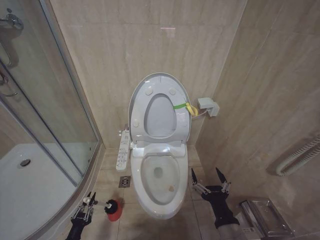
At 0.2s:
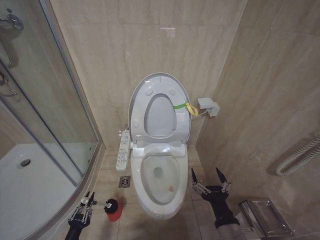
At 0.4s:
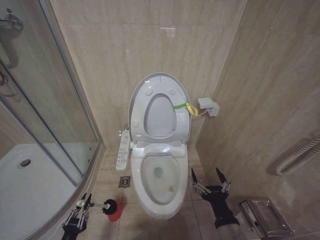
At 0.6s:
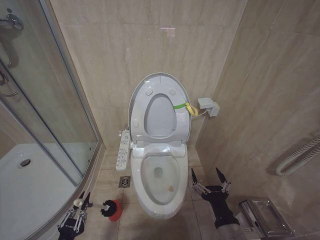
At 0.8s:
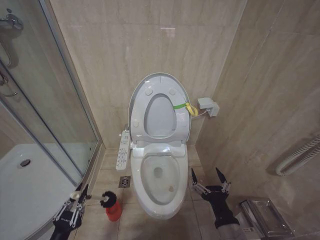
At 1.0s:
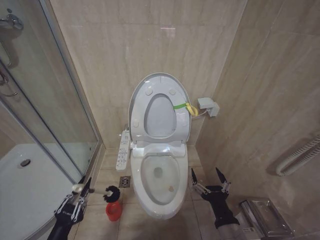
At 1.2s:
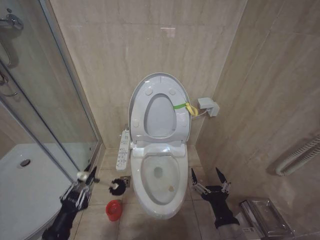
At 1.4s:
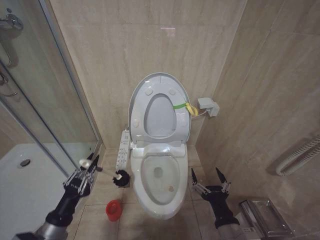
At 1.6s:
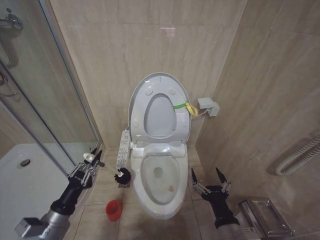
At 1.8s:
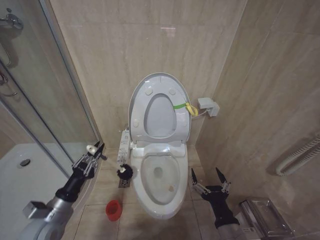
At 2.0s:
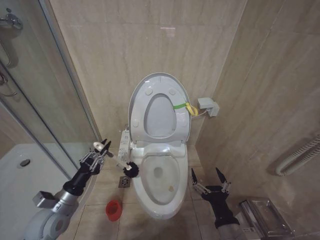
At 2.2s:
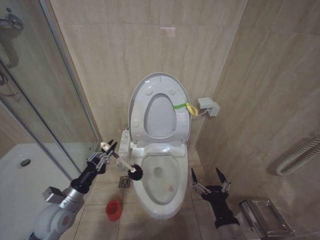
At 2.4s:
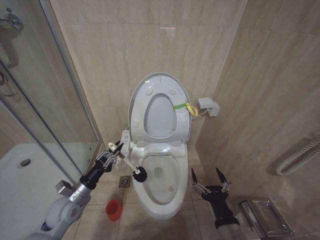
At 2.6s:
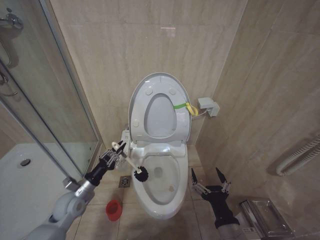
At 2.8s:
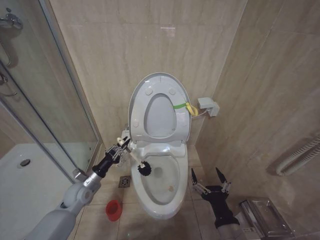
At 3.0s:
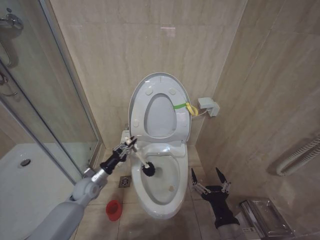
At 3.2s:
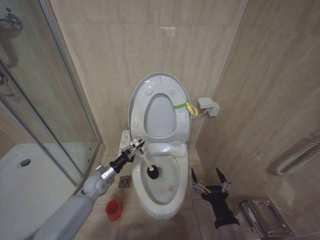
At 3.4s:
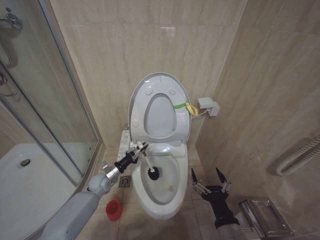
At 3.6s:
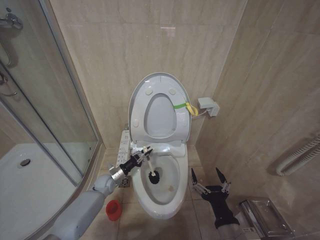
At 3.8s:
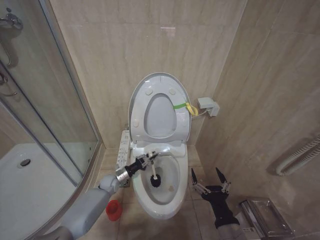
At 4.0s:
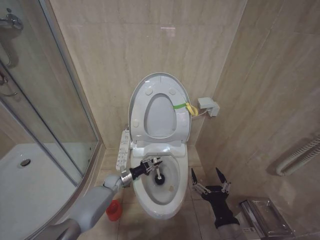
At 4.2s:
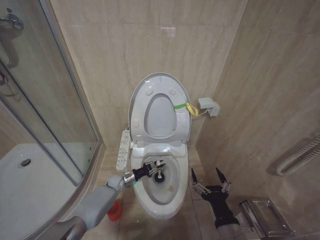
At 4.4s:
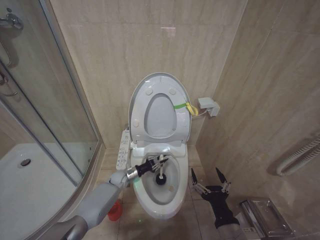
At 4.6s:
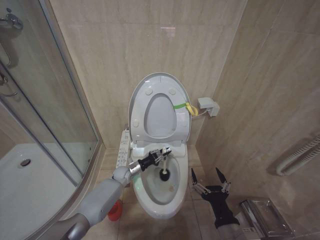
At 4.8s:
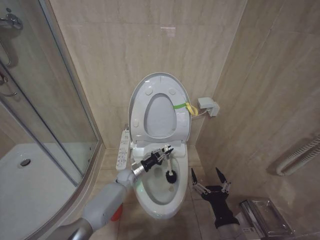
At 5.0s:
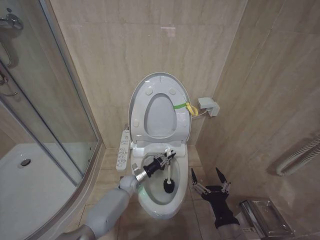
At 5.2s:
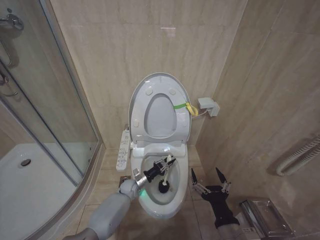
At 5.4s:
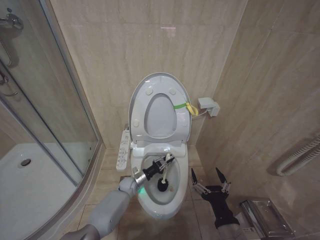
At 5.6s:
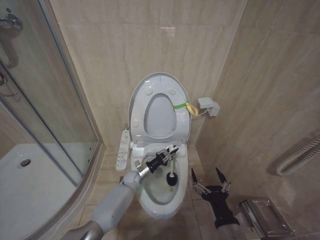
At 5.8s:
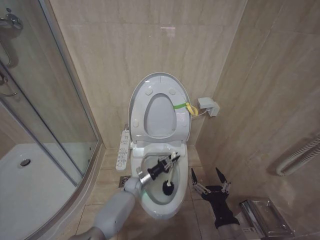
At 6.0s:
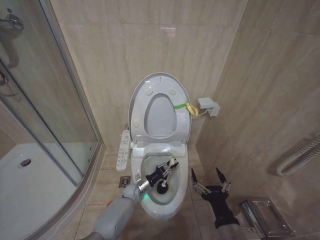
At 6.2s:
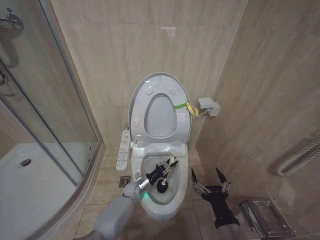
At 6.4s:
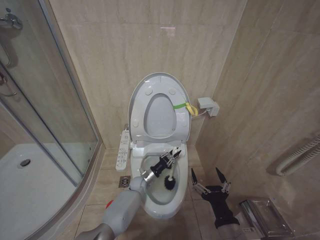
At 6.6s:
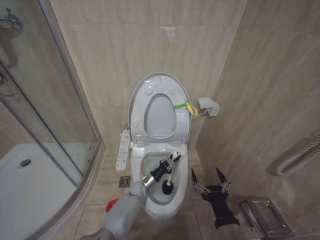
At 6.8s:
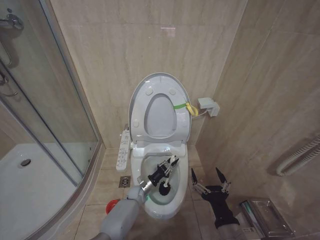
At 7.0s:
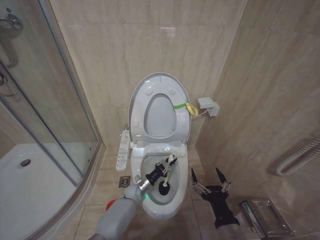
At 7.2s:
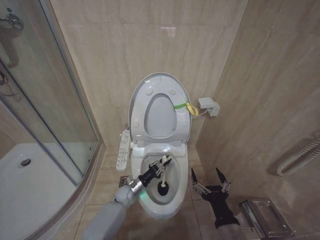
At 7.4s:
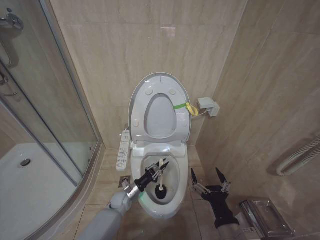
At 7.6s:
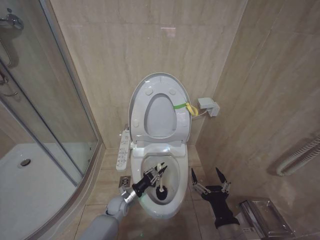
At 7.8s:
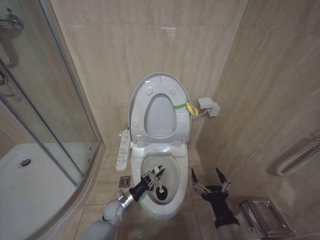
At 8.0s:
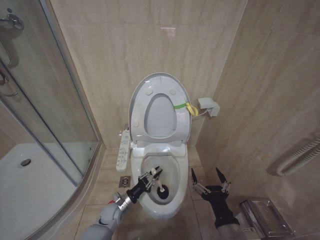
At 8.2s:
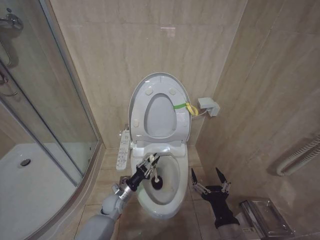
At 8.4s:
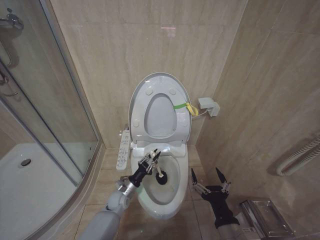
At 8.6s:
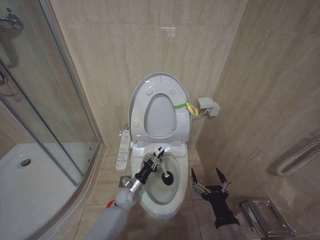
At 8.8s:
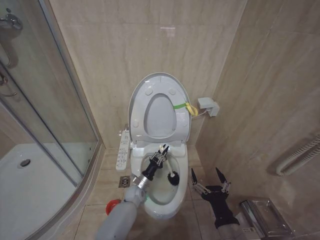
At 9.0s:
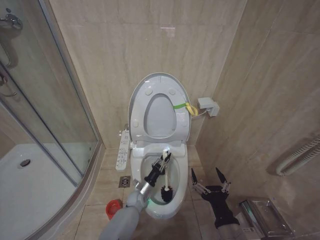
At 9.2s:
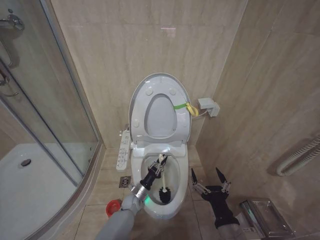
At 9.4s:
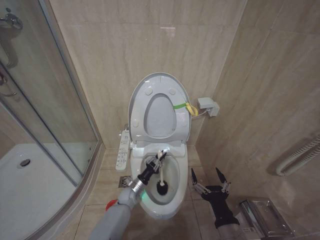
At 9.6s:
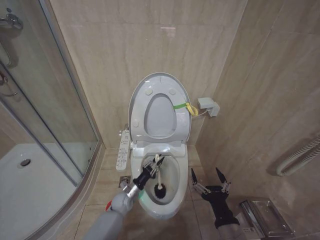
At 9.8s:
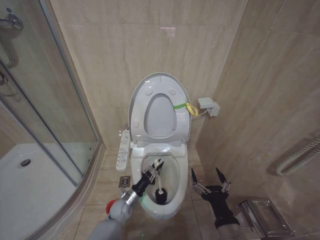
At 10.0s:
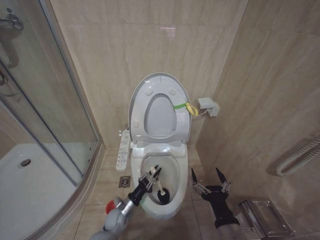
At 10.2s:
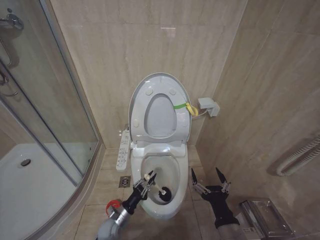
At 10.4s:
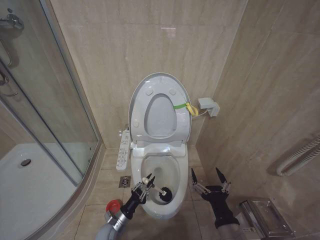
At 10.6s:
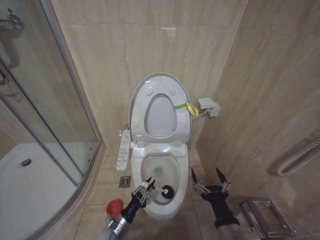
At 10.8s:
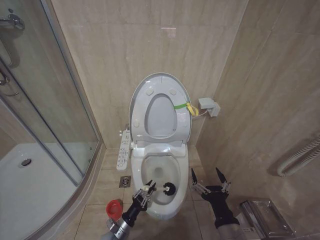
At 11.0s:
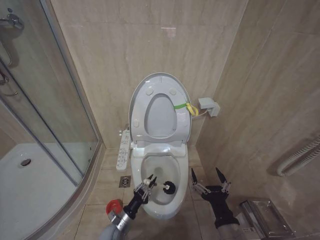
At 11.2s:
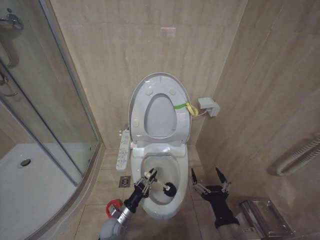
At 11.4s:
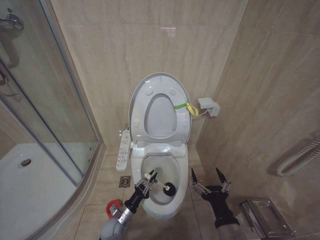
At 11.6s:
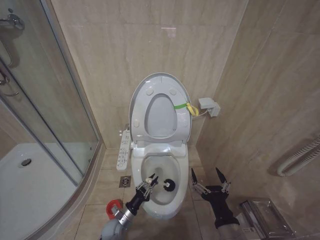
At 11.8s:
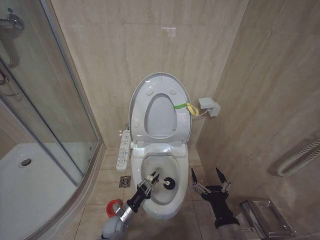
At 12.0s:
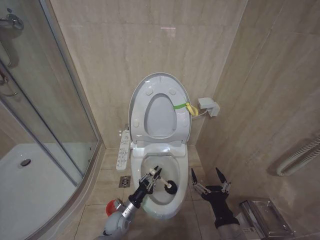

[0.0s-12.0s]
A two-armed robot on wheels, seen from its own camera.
Task of the whole recording: Open the toilet lid, clean the toilet bowl with a toilet brush, close the toilet lid, and flush.
0.0s to 1.6s: The left gripper heads upward, covering roughly 25 cm.
1.6s to 3.0s: The left gripper shifts roughly 20 cm forward.
3.0s to 4.4s: The left gripper goes roughly 20 cm downward, to the right and forward.
4.4s to 6.0s: The left gripper heads to the right, covering some 10 cm.
6.0s to 7.6s: The left gripper shifts about 10 cm backward and to the left.
7.6s to 9.0s: The left gripper is displaced to the right by about 10 cm.
9.0s to 10.4s: The left gripper heads backward and to the left, covering roughly 15 cm.
10.4s to 12.0s: The grippers make only small movements.

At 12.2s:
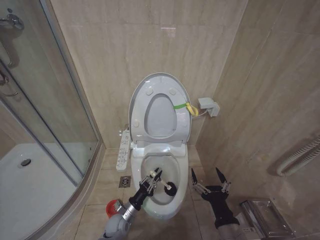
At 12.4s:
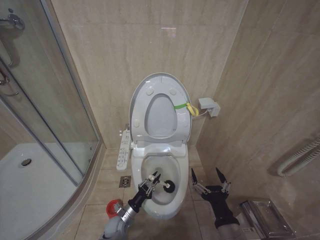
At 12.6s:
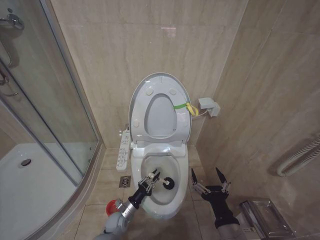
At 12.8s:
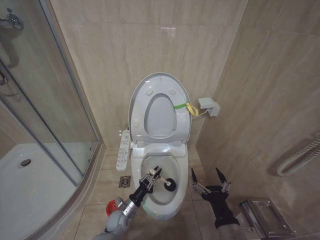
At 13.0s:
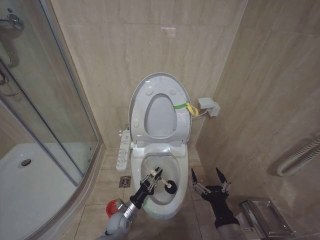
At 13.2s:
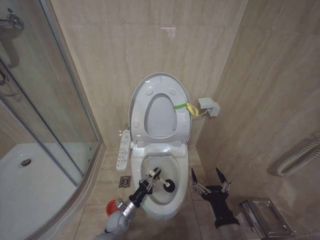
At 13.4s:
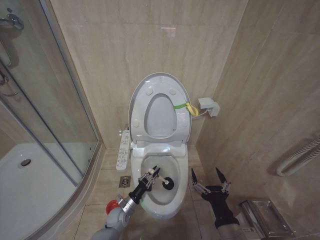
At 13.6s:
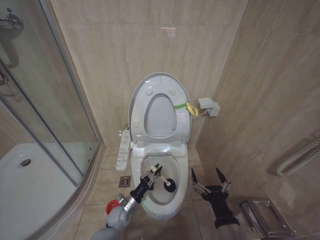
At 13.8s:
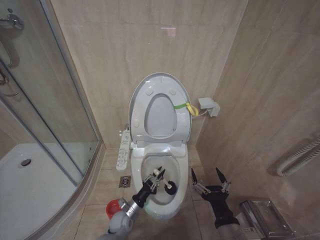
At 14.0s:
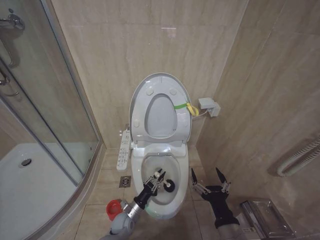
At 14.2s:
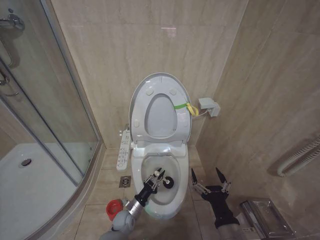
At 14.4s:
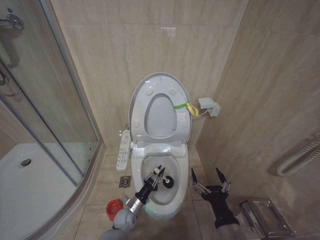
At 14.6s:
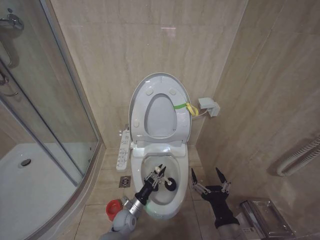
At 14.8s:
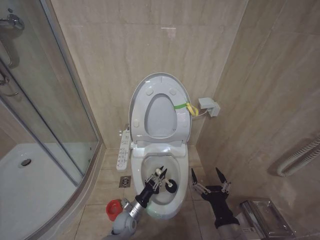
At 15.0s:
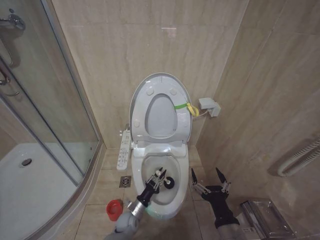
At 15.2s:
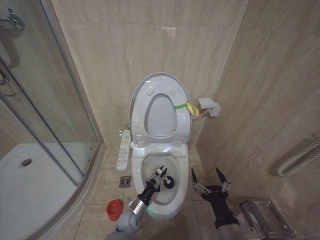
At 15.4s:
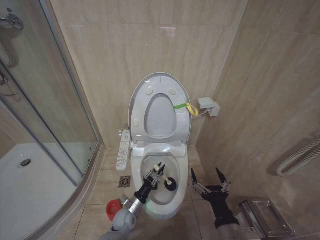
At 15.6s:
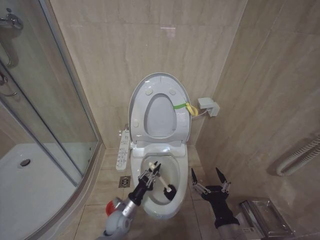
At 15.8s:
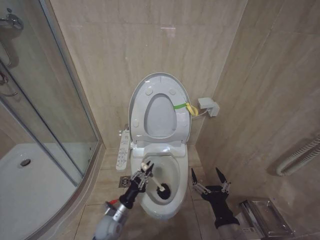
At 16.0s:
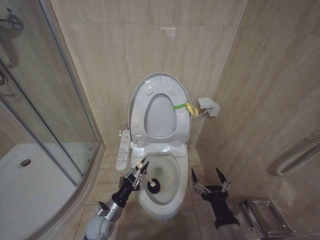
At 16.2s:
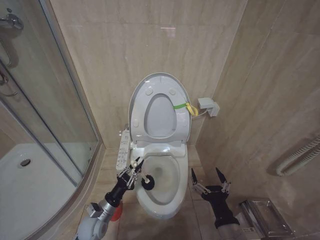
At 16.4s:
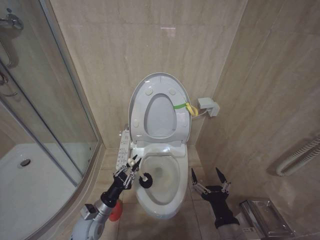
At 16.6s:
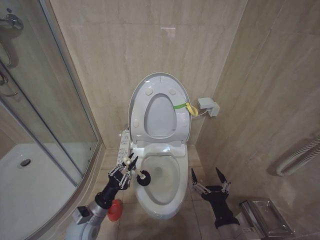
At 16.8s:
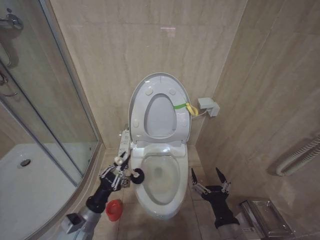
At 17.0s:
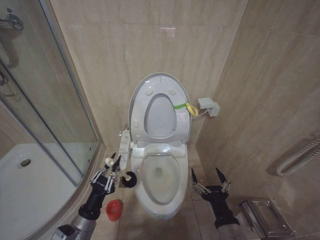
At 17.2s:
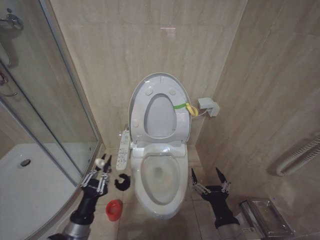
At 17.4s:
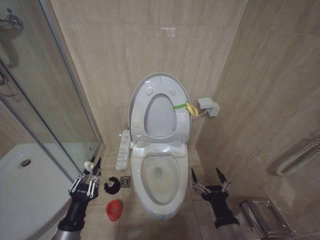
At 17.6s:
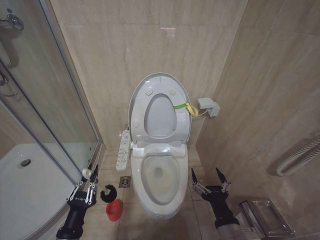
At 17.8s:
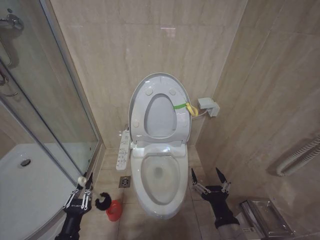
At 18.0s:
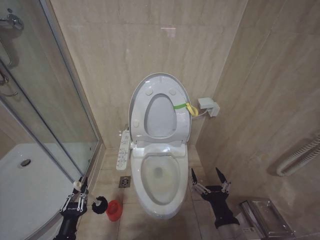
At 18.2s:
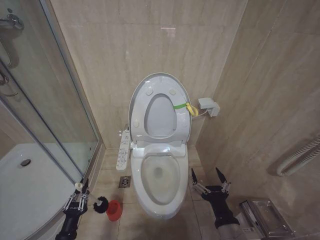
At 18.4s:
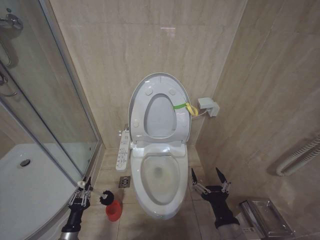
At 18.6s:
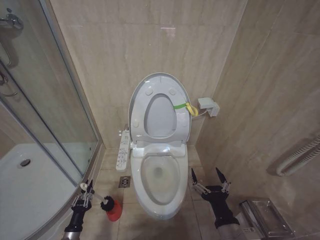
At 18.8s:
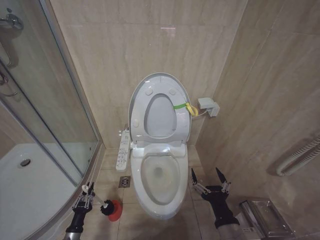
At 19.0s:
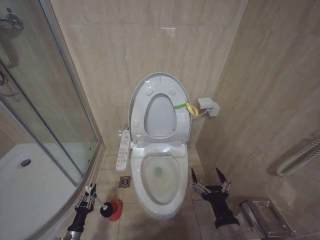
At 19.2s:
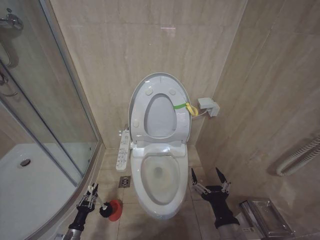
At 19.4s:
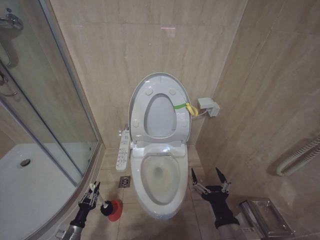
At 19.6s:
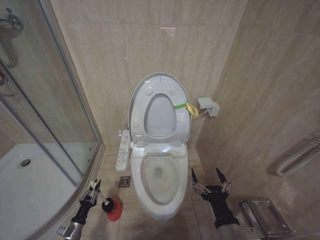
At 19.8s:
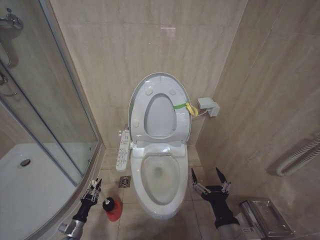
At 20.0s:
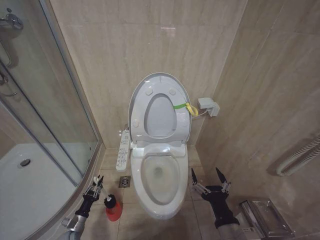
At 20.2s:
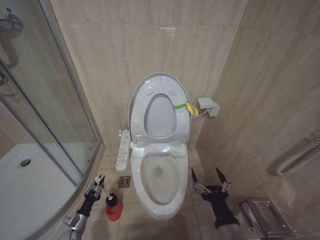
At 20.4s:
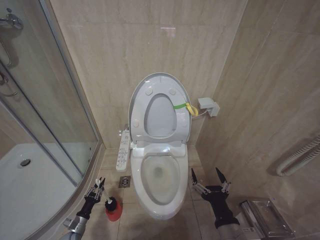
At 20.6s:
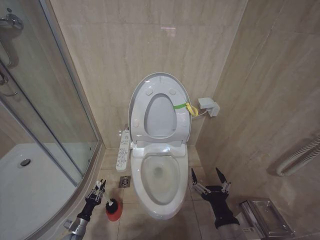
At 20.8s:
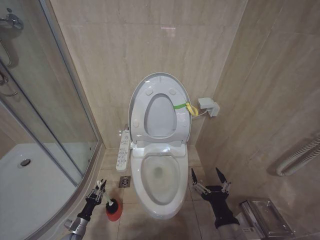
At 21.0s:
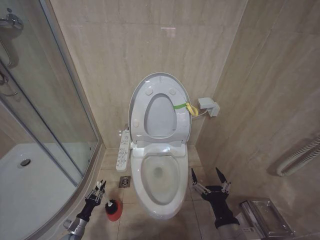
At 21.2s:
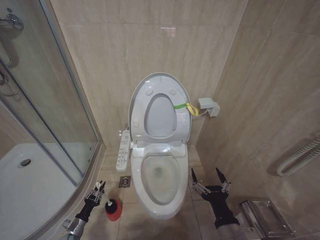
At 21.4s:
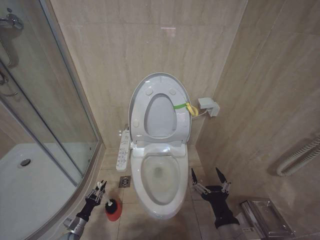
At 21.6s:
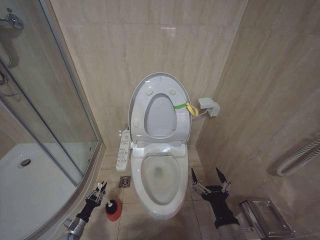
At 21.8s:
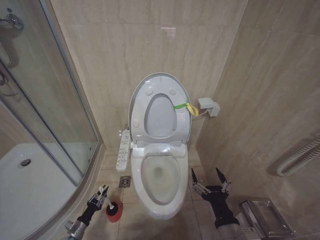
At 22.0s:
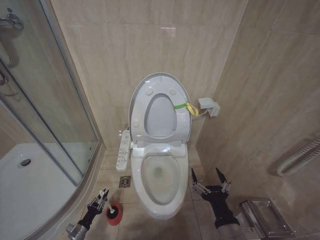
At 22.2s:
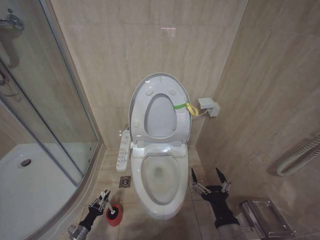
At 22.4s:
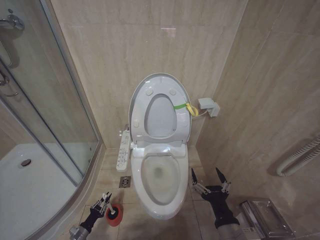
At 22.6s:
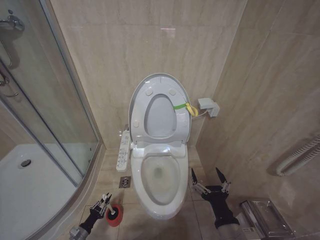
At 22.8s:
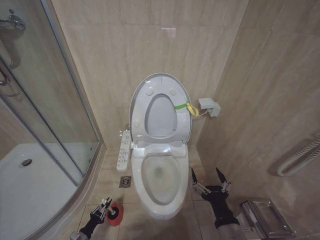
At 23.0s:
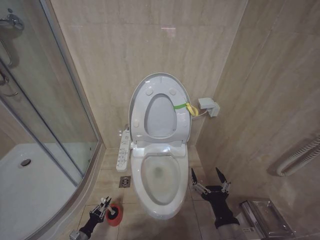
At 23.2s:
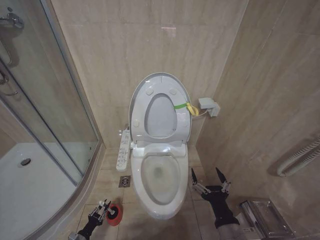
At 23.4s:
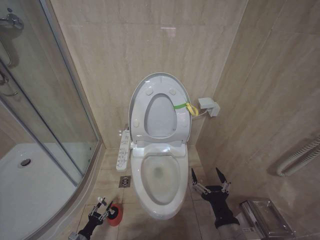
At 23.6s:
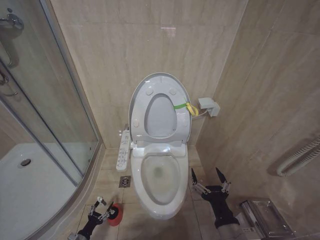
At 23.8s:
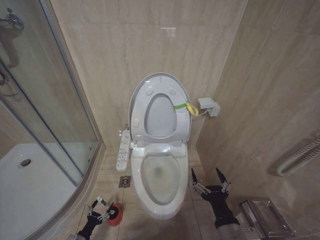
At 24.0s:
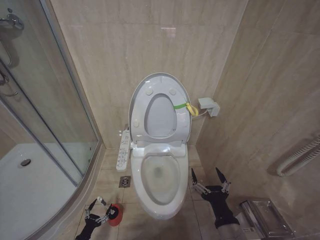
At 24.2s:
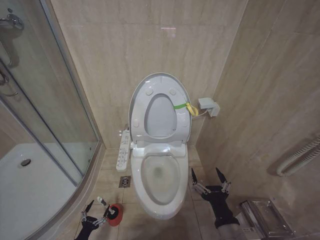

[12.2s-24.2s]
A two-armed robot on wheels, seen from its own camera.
Task of the whole recording: Open the toilet lid, clean the toilet bowl with a toilet brush, close the toilet lid, and flush.
13.8s to 15.2s: The grippers move only a little.
15.2s to 16.6s: The left gripper shifts about 20 cm upward and to the left.
16.6s to 18.2s: The left gripper moves backward, to the left and downward, roughly 15 cm.
18.2s to 19.8s: The left gripper heads downward, forward and to the left, covering some 15 cm.
21.2s to 22.6s: The grippers make only small movements.
22.6s to 24.2s: The left gripper is displaced backward by approximately 5 cm, and opens.
